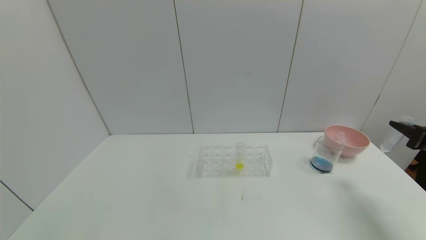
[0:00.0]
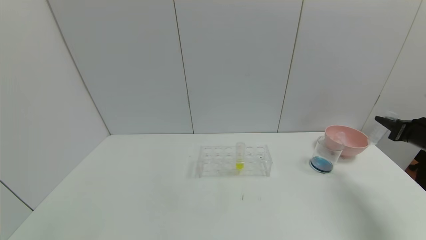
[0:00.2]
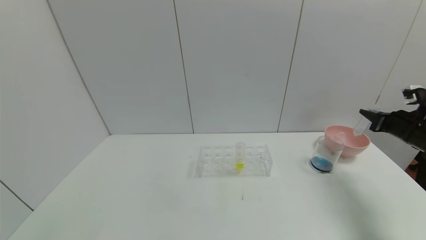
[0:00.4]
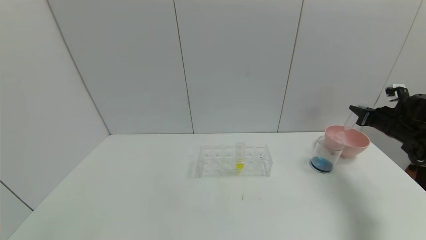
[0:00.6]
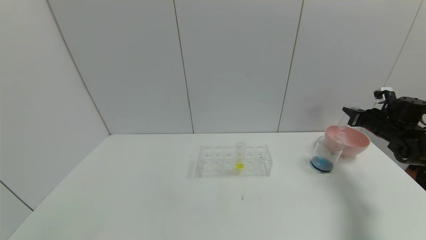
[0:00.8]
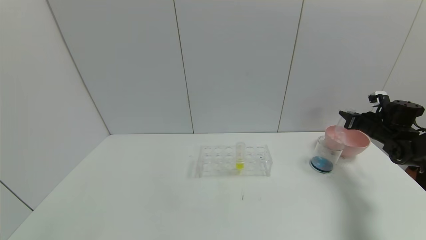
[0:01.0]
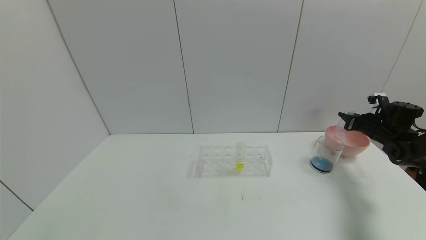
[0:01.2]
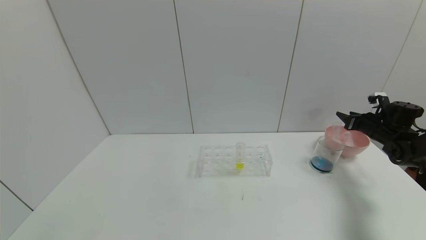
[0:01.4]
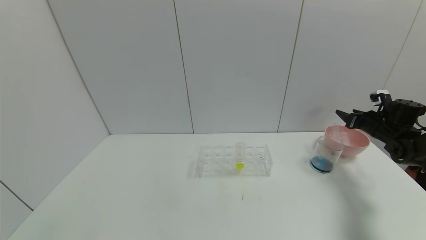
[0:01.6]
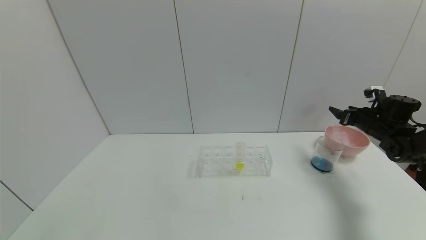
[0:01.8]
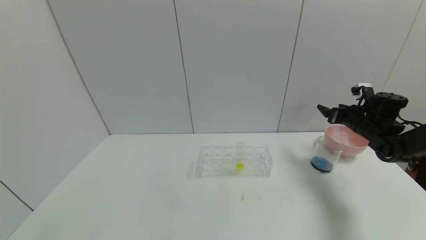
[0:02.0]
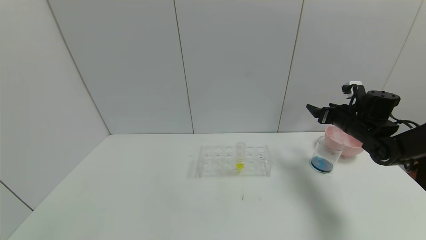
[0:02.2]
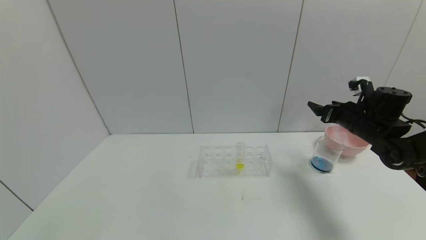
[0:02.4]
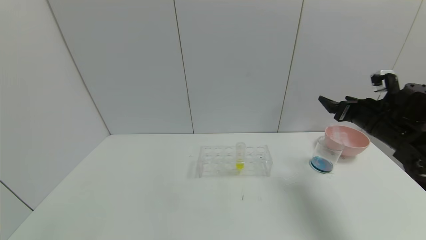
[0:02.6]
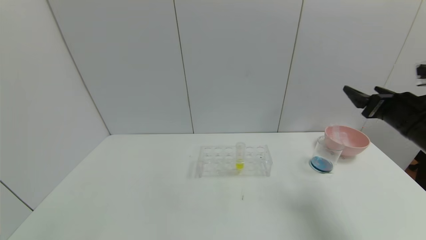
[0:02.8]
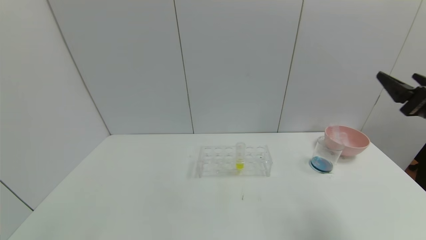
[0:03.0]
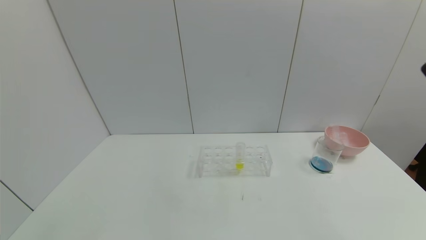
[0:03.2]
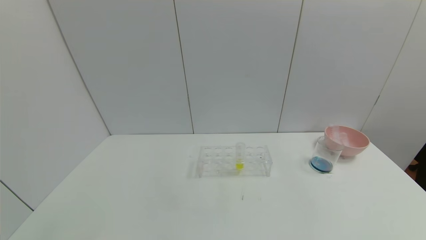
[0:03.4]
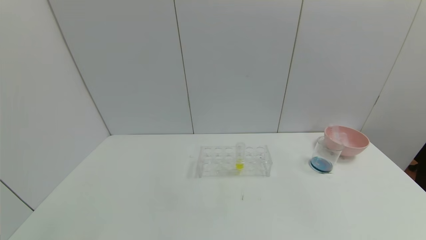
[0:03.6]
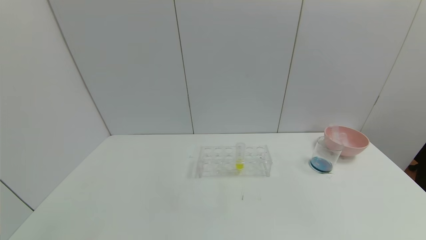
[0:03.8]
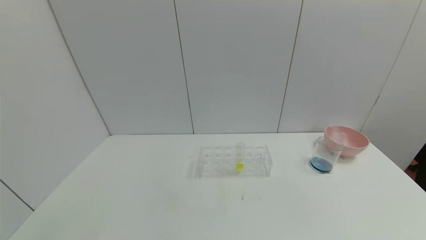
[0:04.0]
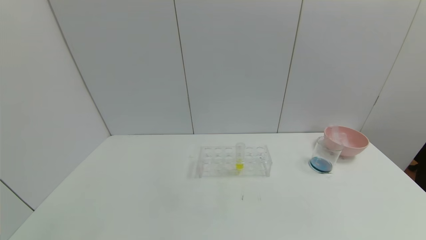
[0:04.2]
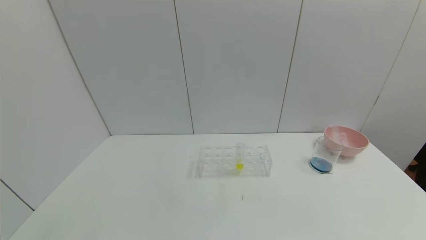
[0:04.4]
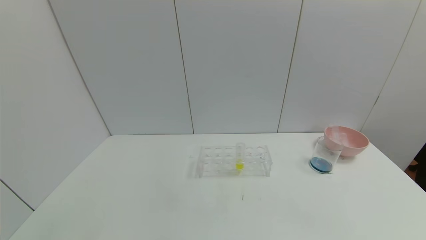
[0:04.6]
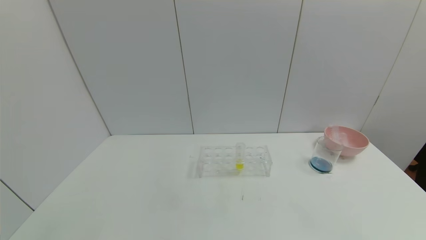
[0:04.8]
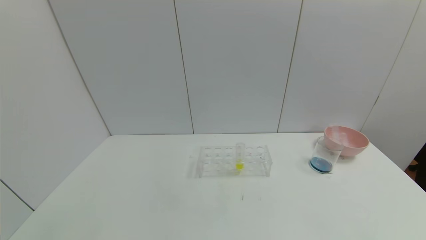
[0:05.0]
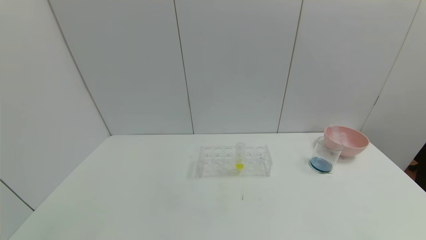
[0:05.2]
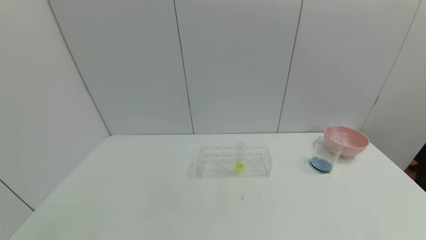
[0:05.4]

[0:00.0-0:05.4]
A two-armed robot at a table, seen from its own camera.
Task of the whole recording: pick up the test tube with red pigment and the test tube with blue pigment by grippers and pour them into the container.
0:00.0 to 0:01.4: The right gripper heads forward, covering about 15 cm, and opens.
0:01.4 to 0:02.8: The right gripper shifts some 20 cm backward, upward and to the left, and opens its fingers.
0:02.8 to 0:04.0: The right gripper shifts approximately 35 cm backward.
